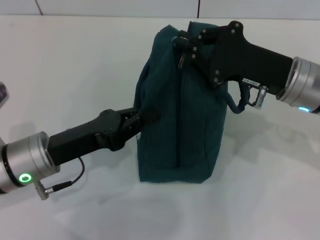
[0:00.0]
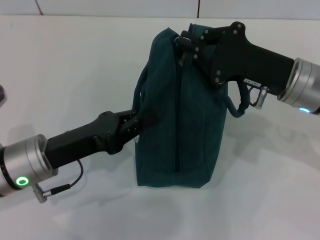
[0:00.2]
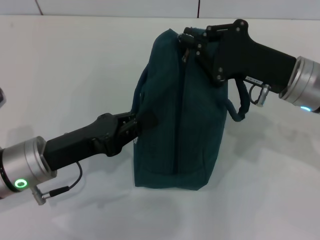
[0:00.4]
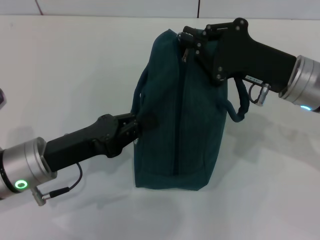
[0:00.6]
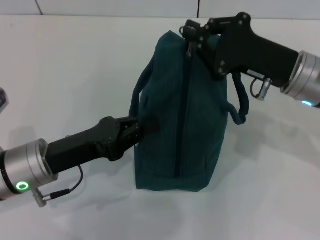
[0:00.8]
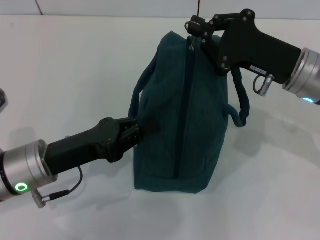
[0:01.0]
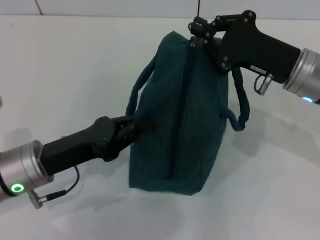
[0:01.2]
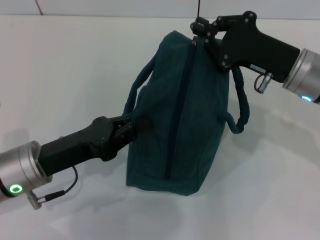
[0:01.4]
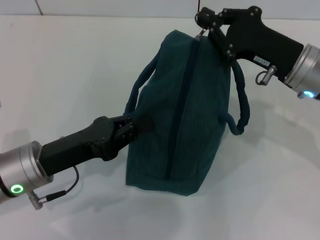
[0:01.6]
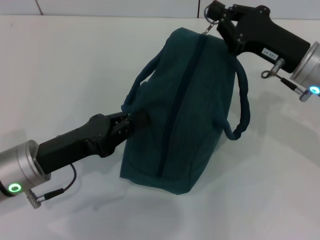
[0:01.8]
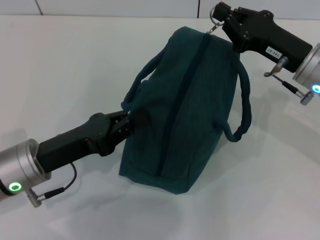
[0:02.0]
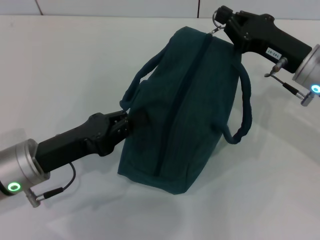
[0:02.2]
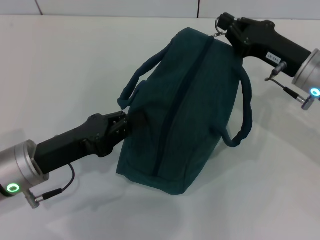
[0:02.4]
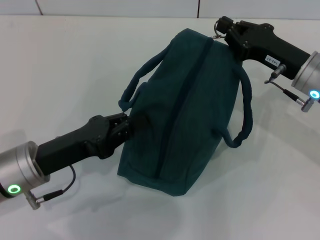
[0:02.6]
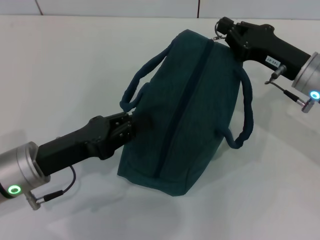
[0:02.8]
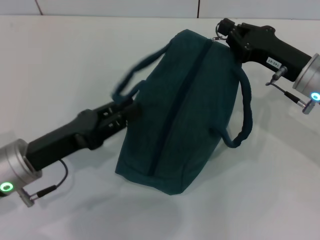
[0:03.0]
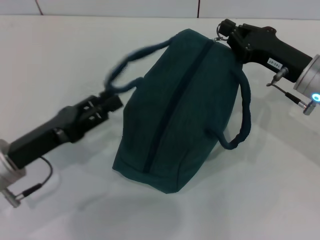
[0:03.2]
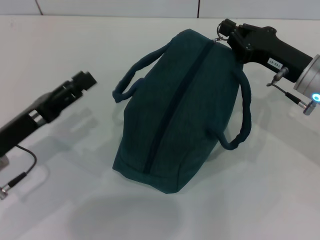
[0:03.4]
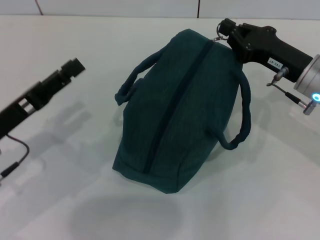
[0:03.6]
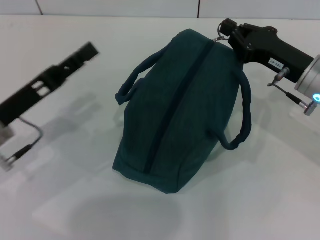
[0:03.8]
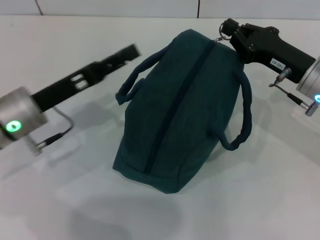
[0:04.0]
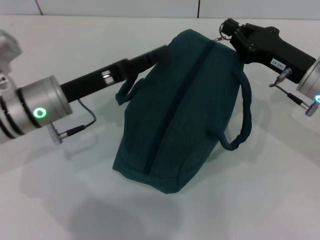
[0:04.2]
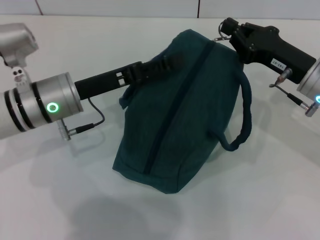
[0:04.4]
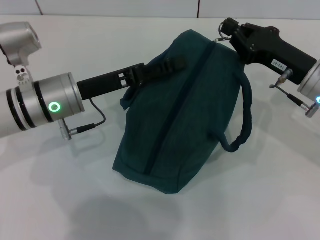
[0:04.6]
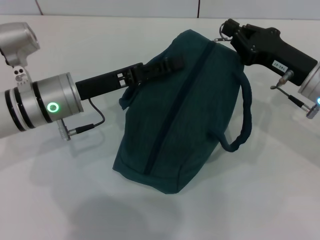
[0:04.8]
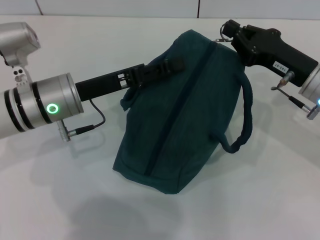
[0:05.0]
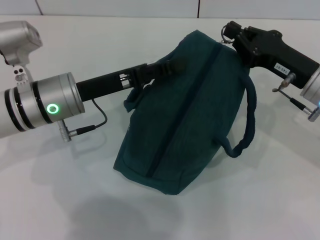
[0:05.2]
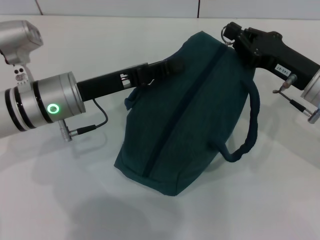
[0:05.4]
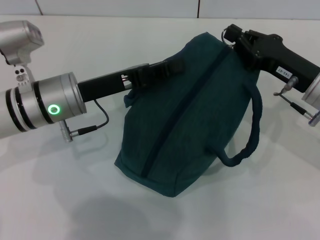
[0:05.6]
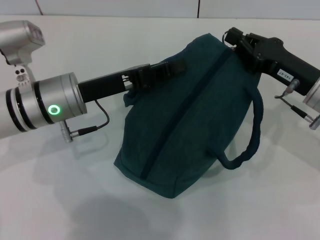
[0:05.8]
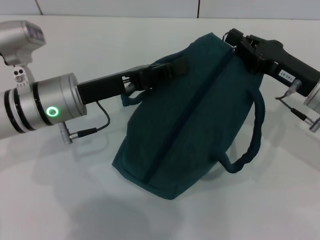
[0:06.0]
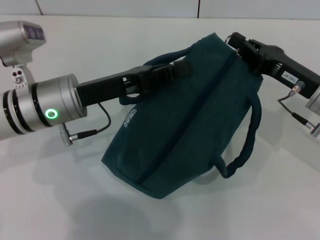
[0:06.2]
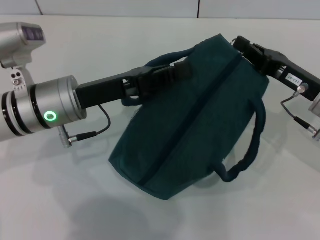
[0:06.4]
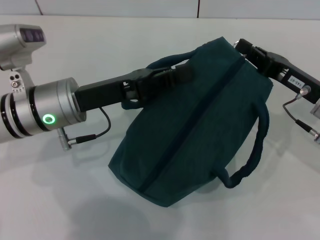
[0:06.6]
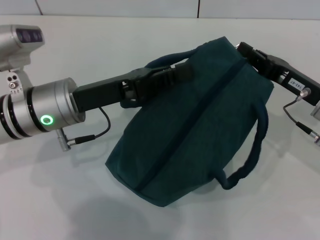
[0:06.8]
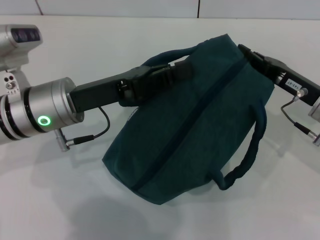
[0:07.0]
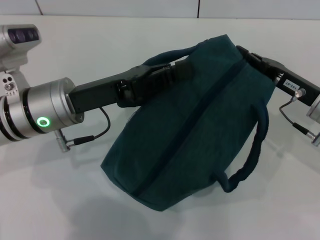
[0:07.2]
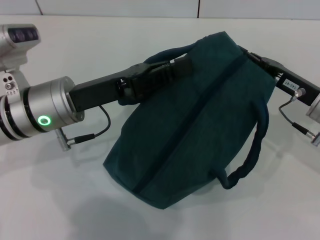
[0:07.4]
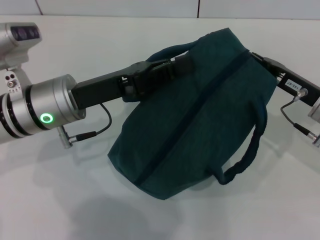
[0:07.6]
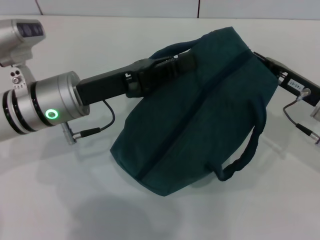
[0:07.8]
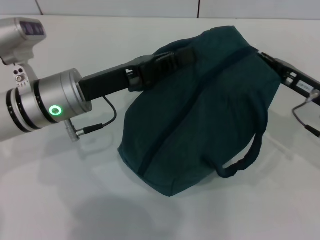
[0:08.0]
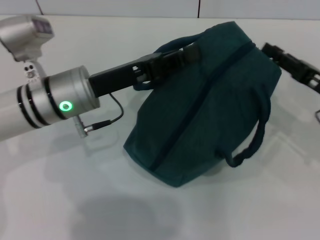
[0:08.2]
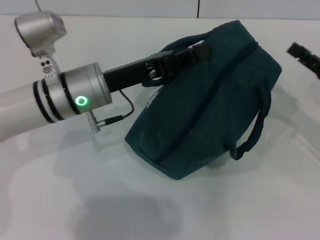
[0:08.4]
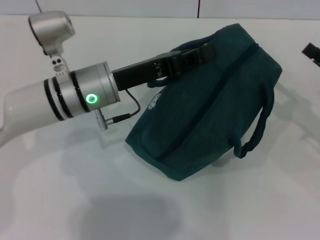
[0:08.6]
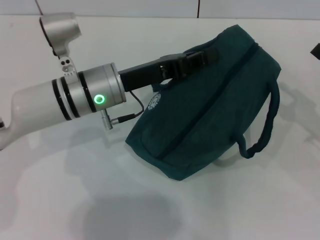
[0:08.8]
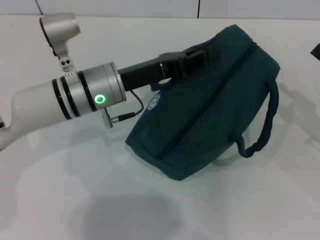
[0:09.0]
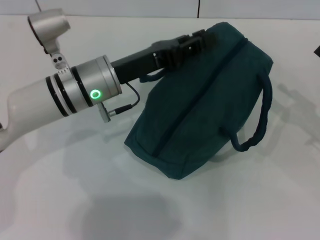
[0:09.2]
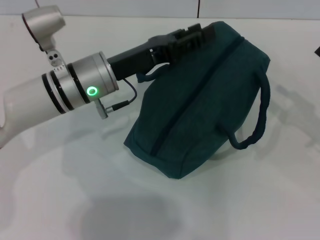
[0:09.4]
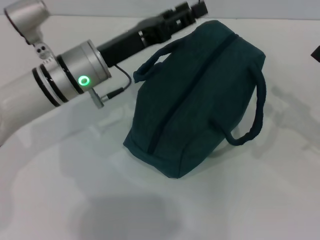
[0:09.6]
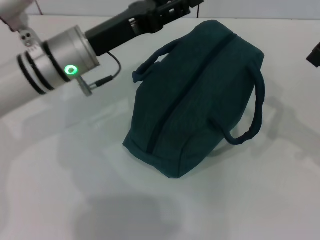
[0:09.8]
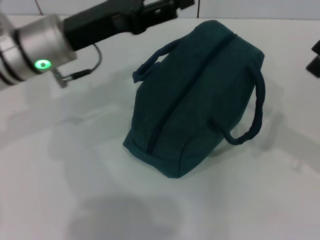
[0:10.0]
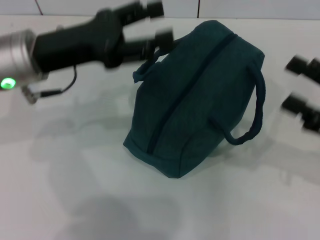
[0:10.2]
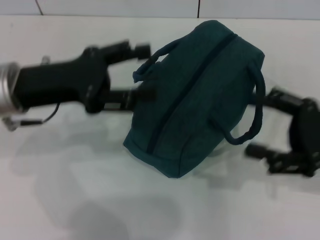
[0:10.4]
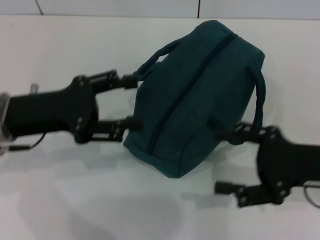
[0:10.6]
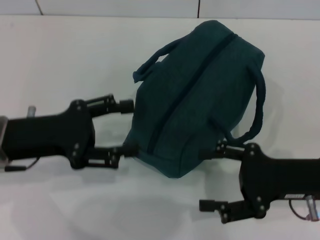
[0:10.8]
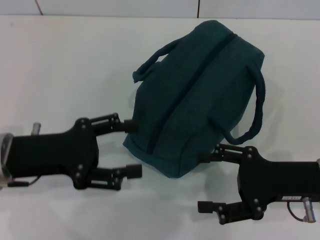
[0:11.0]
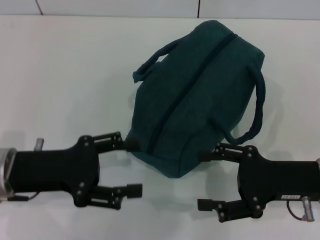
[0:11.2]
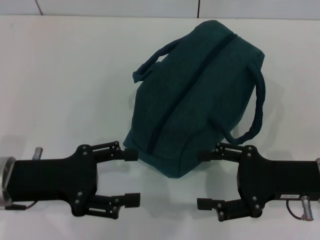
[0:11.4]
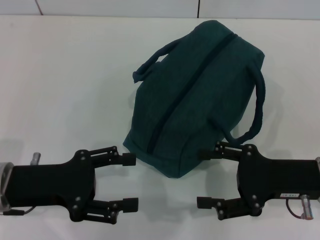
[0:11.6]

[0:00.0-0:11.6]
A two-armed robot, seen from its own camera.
Step, 0:00.0 to 0:08.0: Zip up the lunch bag with your right hand.
Step, 0:08.2 to 0:09.4: Hold the lunch bag with your left hand.
0:00.0 to 0:01.4: The grippers make only small movements.
0:02.8 to 0:04.4: The left gripper travels forward by roughly 10 cm, and opens its fingers.
0:04.4 to 0:05.8: The left gripper closes up.
0:07.2 to 0:08.8: The right gripper heads to the right, covering approximately 10 cm, and opens, while the left gripper moves about 5 cm.
0:08.8 to 0:10.2: The right gripper moves approximately 5 cm, while the left gripper moves to the left and upward, about 10 cm, and opens.
0:10.2 to 0:11.6: The left gripper moves backward and downward, some 15 cm. Meanwhile the right gripper moves to the left, approximately 10 cm.

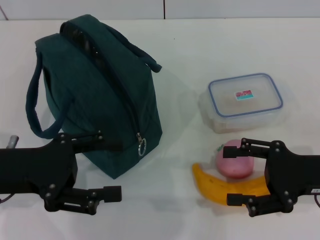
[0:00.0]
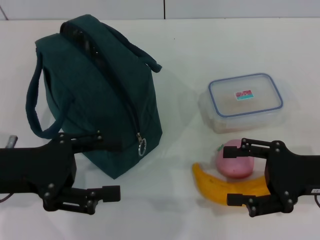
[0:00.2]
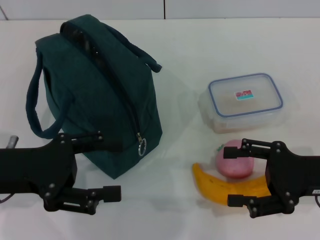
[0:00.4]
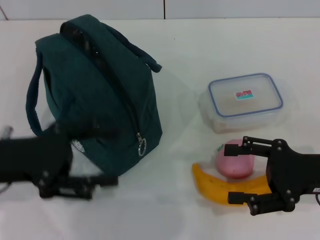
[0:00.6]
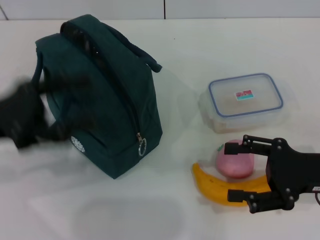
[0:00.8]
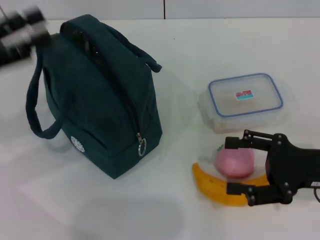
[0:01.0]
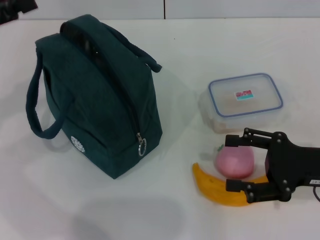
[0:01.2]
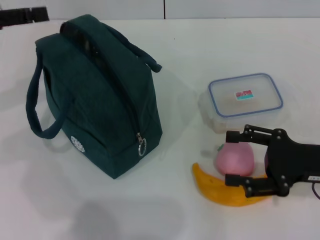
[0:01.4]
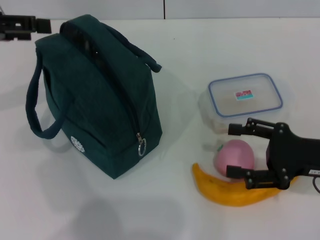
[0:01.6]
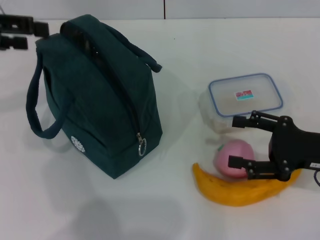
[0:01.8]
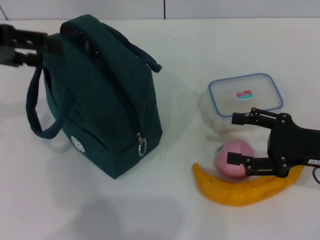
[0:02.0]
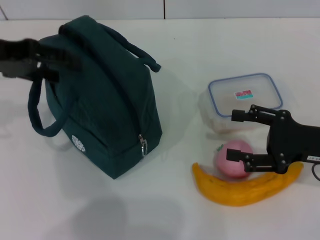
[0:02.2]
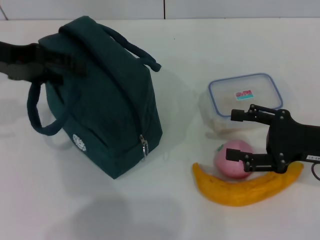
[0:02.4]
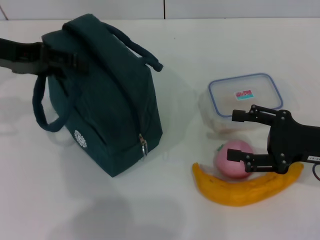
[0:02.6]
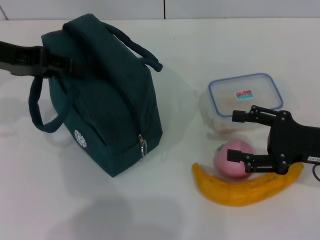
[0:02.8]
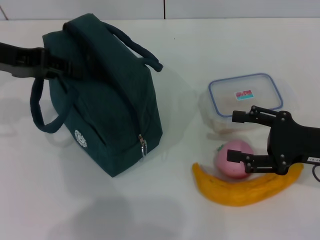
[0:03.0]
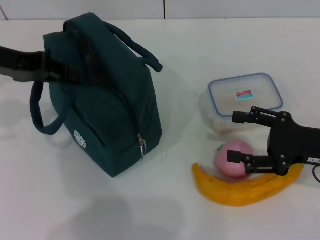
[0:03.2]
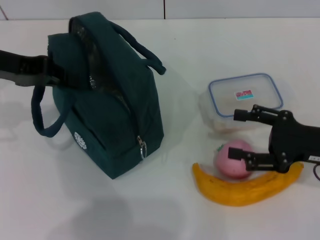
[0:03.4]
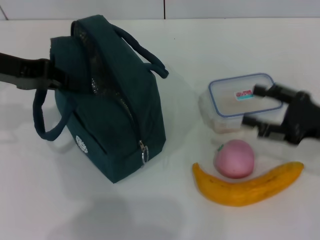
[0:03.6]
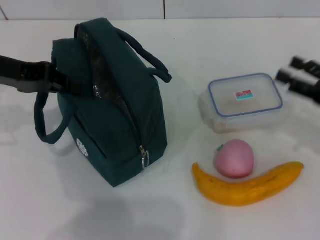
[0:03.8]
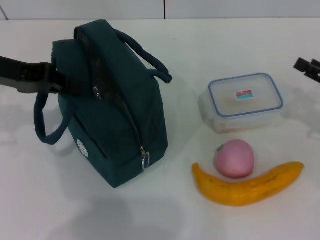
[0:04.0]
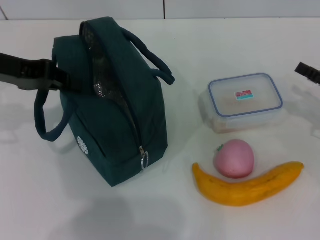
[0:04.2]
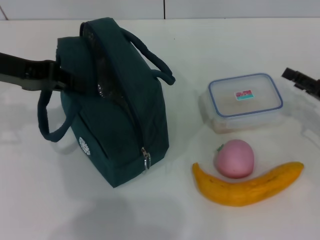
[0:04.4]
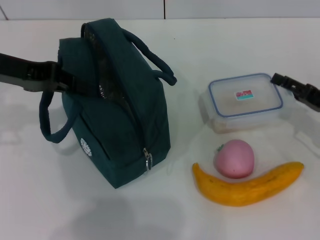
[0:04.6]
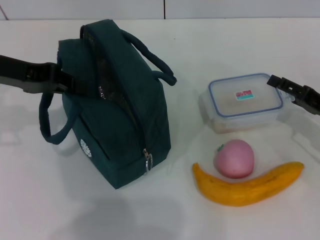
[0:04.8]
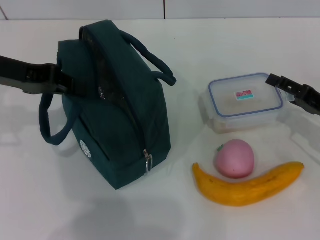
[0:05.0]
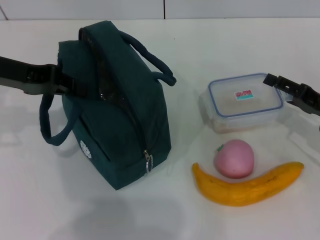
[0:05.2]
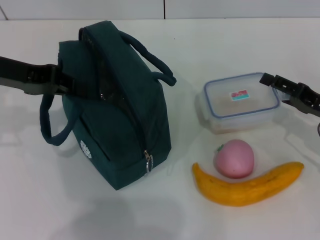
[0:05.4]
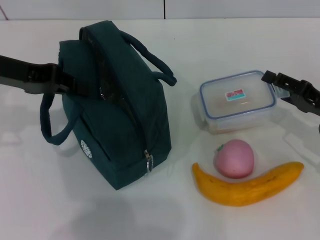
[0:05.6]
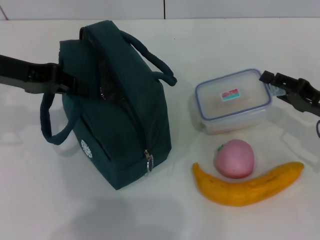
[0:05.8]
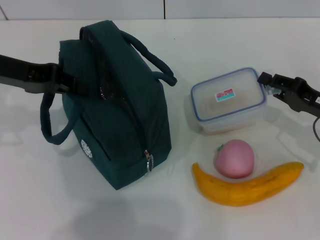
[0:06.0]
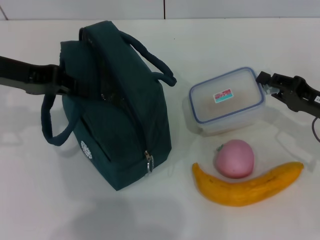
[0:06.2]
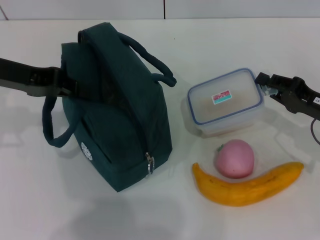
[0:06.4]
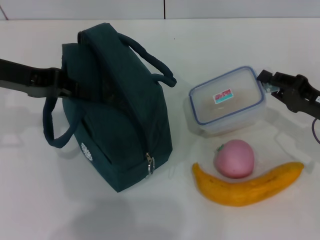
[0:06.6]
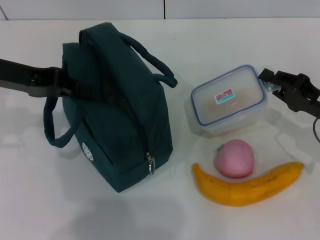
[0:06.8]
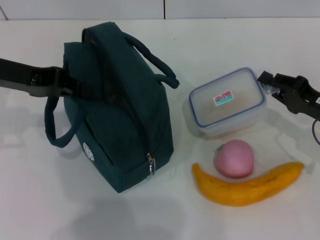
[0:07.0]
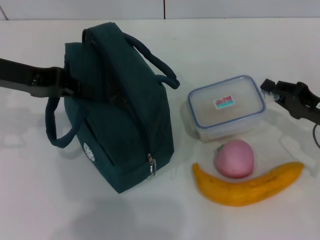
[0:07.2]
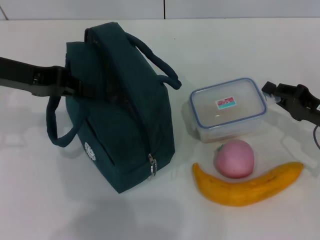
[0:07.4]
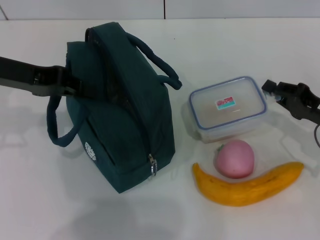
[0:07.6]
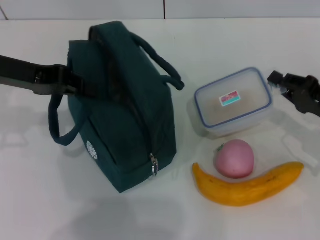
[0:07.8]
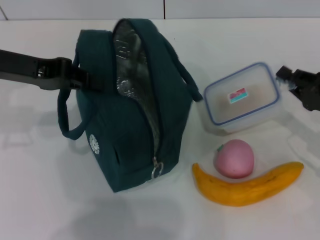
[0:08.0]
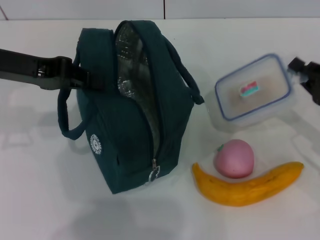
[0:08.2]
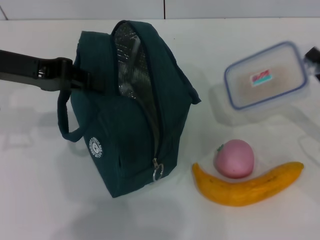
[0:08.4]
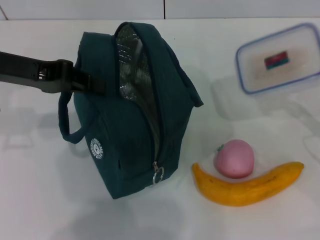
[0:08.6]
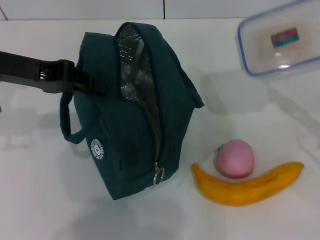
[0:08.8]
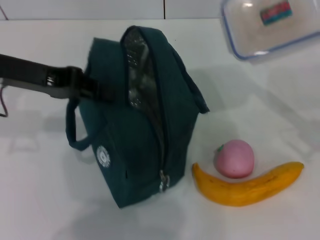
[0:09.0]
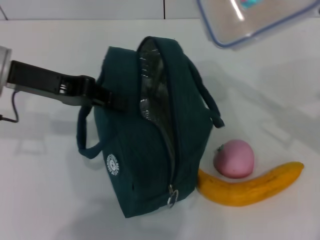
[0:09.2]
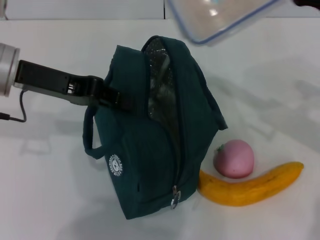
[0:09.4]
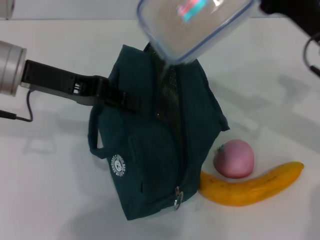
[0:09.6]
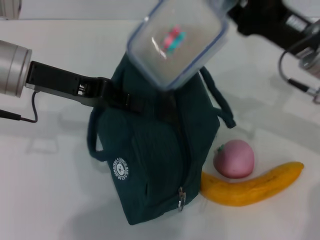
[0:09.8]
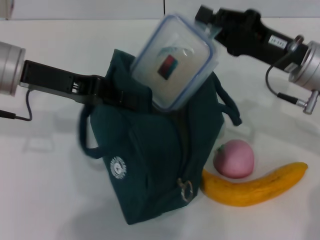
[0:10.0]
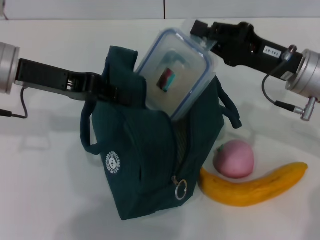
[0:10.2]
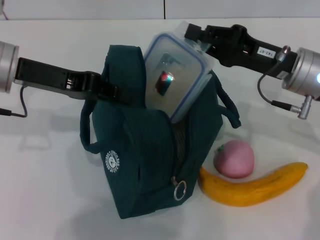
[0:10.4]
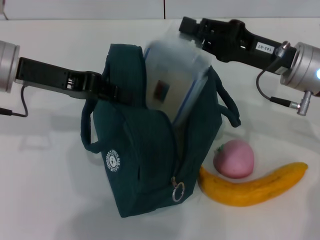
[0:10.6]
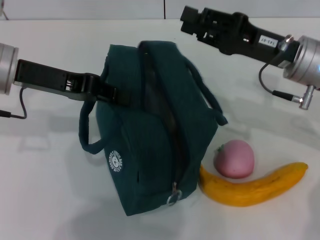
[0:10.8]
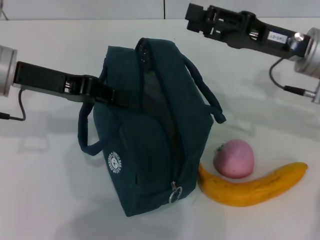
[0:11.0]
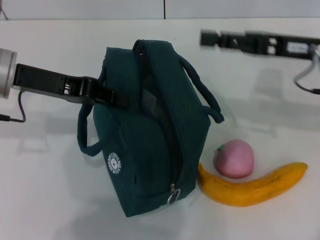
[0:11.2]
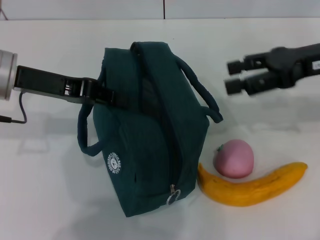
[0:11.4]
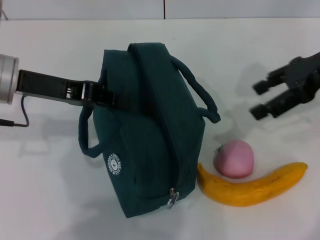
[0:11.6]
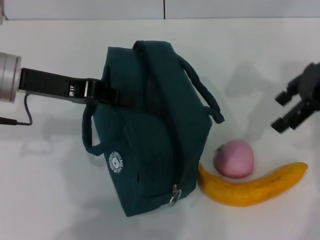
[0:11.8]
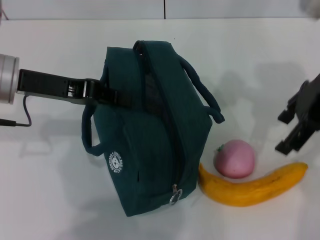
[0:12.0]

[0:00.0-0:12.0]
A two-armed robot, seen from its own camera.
Step, 0:00.0 to 0:03.0: Hold the lunch bag with your left hand.
Step, 0:03.2 to 0:06.0: Pick up the lunch box with your right hand.
Step, 0:06.2 to 0:10.6: Place the lunch box into the lunch bag with your right hand.
0:00.0 to 0:01.6: The left gripper is displaced upward, forward and to the left by about 15 cm.
0:01.6 to 0:03.0: The left gripper shifts by some 5 cm, and closes.
0:03.0 to 0:04.4: The right gripper goes about 5 cm to the right. The left gripper closes up.
0:04.4 to 0:06.0: The right gripper closes.
0:06.0 to 0:07.6: There are only small adjustments of the grippers.
0:07.6 to 0:09.0: The right gripper goes roughly 10 cm upward.
0:09.0 to 0:10.4: The right gripper travels to the left and forward by roughly 10 cm.
0:10.4 to 0:12.0: The right gripper is displaced upward by approximately 10 cm, and opens up.
